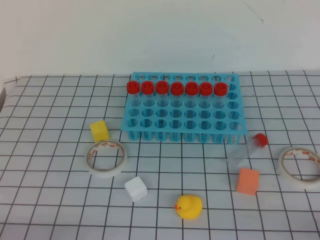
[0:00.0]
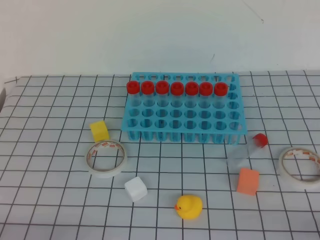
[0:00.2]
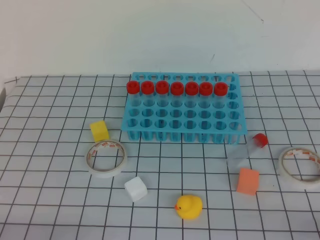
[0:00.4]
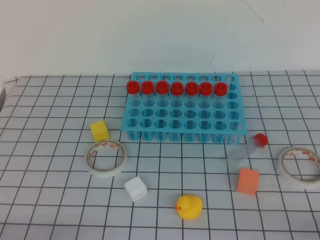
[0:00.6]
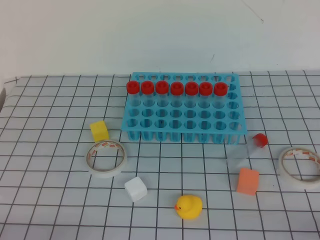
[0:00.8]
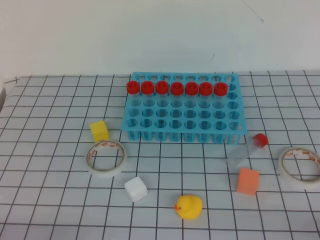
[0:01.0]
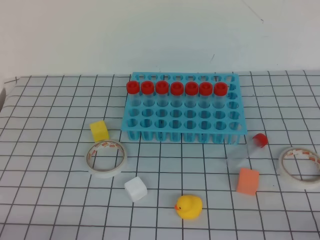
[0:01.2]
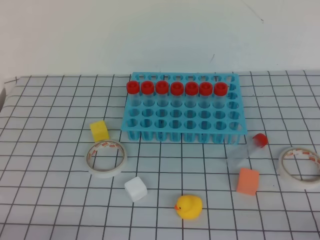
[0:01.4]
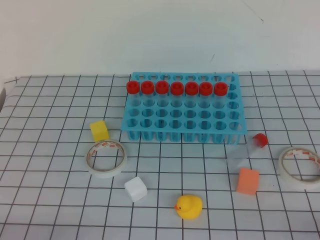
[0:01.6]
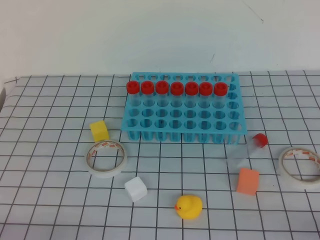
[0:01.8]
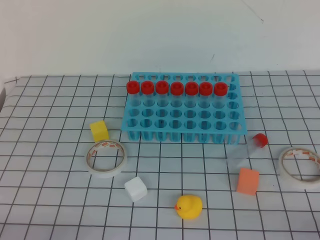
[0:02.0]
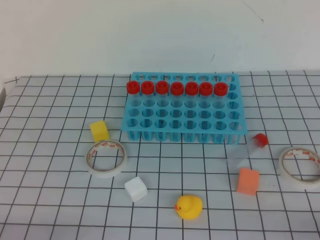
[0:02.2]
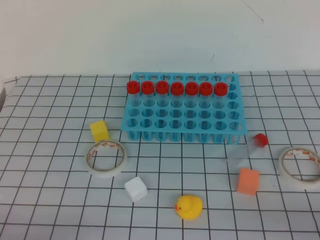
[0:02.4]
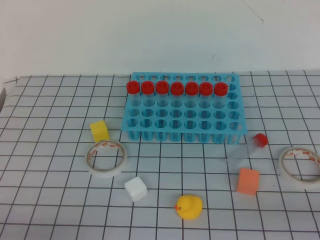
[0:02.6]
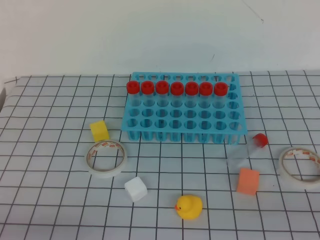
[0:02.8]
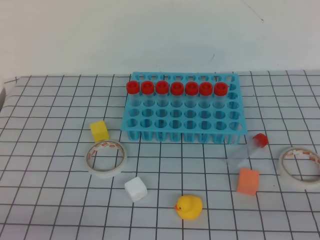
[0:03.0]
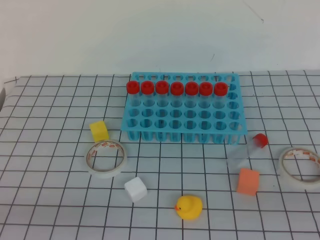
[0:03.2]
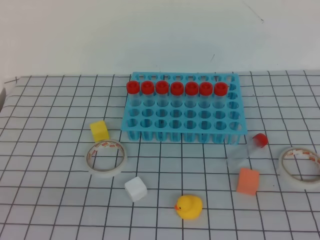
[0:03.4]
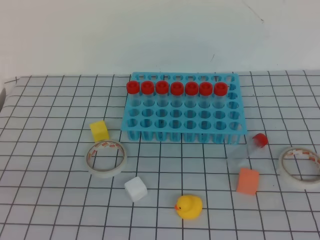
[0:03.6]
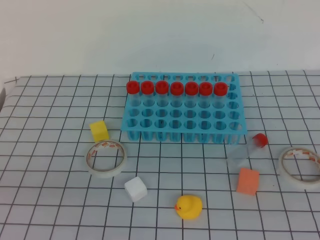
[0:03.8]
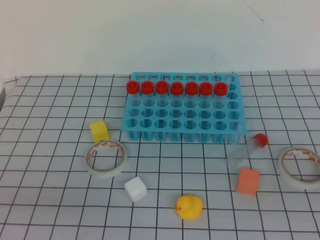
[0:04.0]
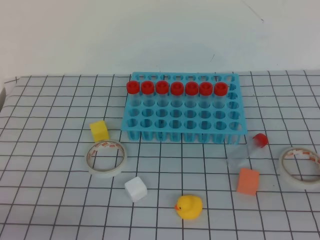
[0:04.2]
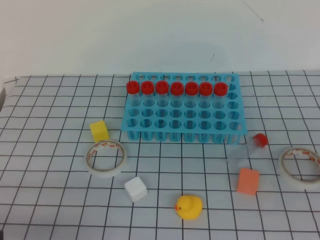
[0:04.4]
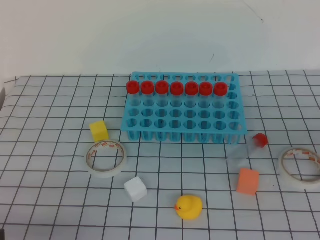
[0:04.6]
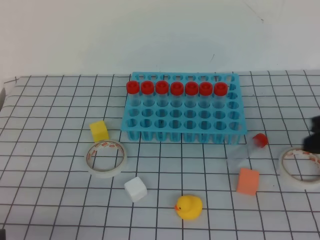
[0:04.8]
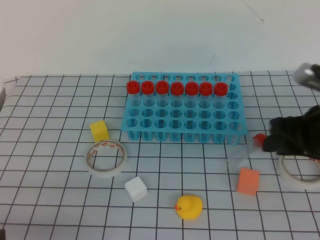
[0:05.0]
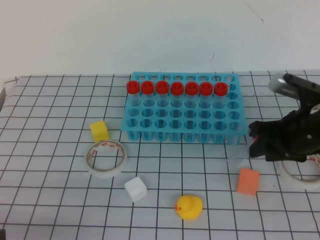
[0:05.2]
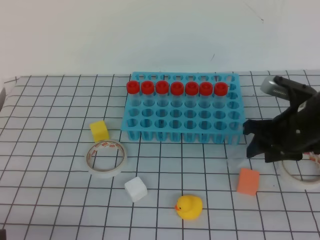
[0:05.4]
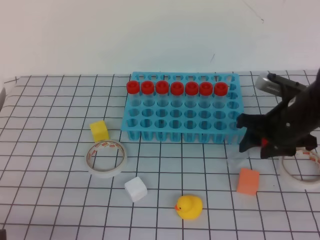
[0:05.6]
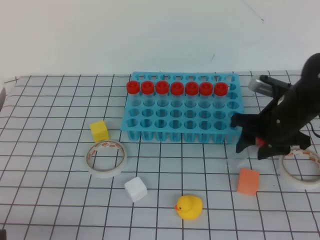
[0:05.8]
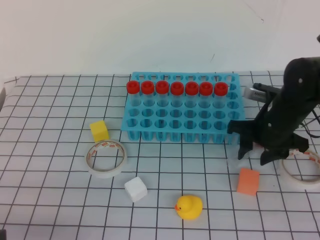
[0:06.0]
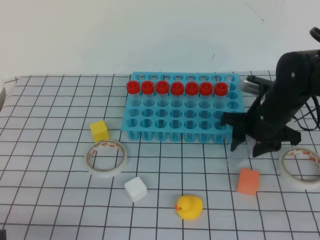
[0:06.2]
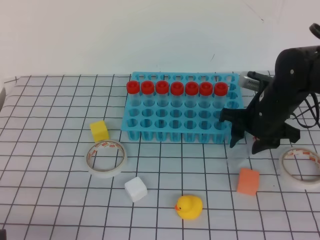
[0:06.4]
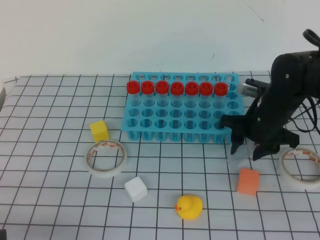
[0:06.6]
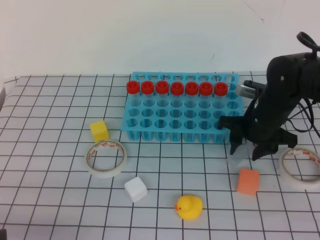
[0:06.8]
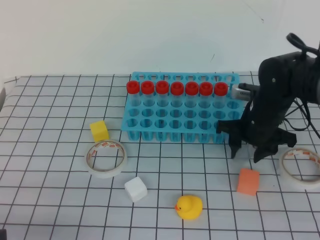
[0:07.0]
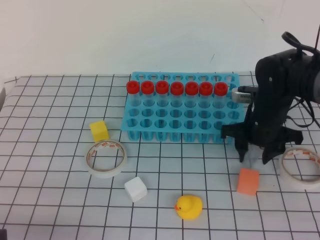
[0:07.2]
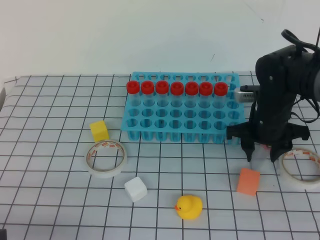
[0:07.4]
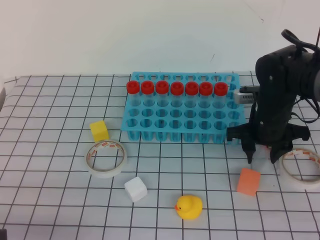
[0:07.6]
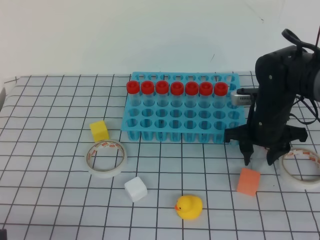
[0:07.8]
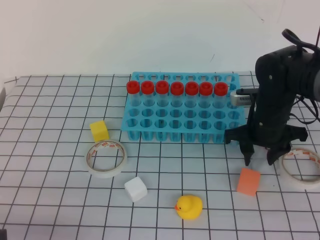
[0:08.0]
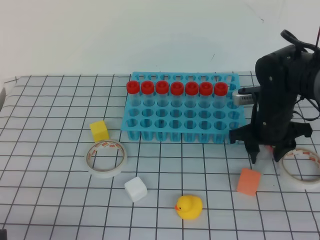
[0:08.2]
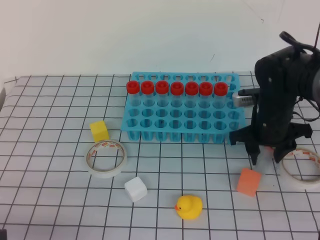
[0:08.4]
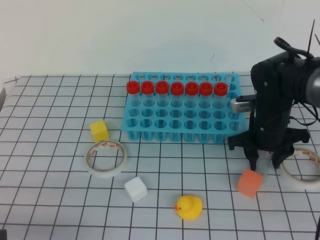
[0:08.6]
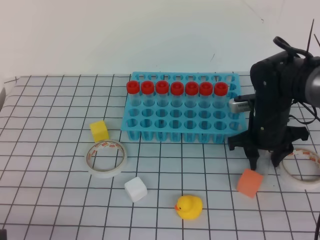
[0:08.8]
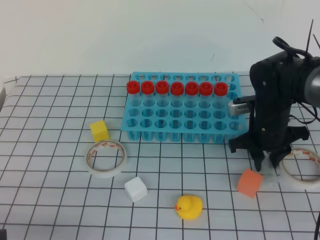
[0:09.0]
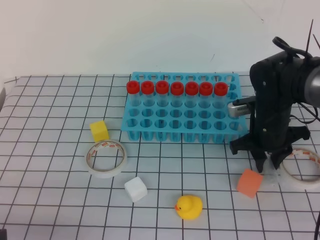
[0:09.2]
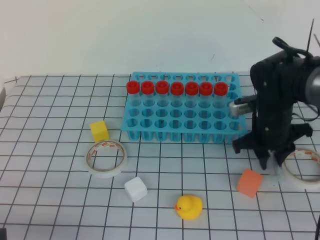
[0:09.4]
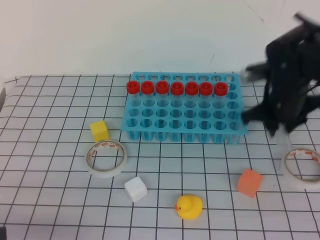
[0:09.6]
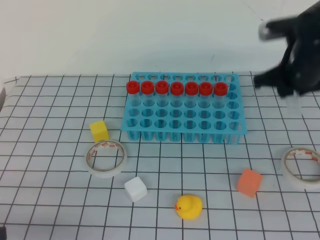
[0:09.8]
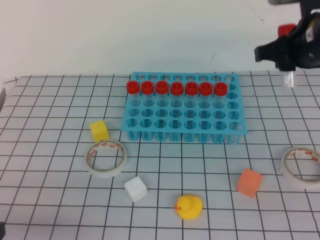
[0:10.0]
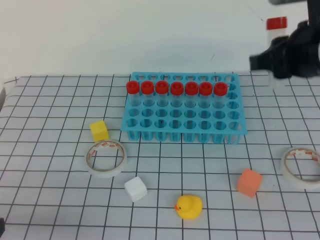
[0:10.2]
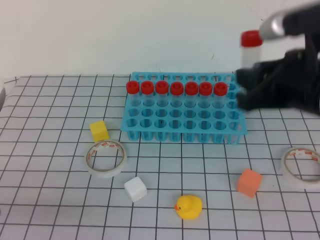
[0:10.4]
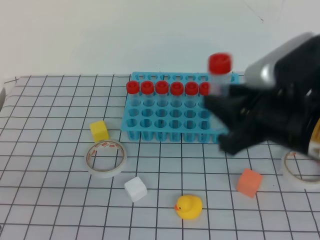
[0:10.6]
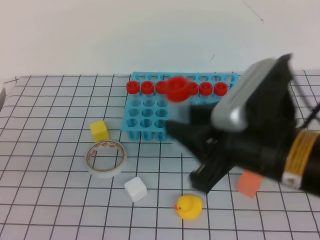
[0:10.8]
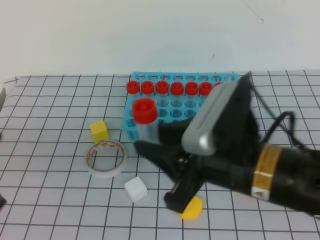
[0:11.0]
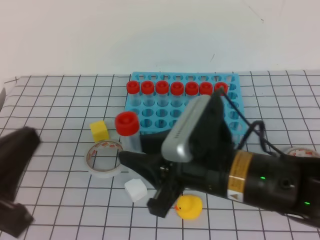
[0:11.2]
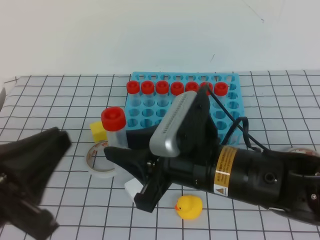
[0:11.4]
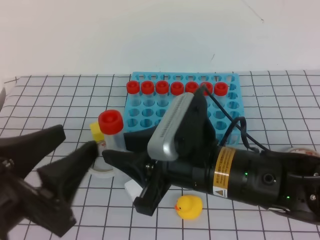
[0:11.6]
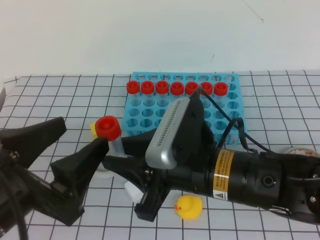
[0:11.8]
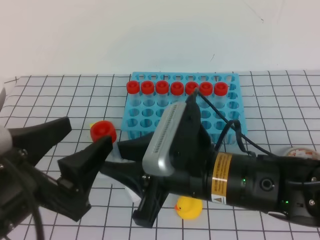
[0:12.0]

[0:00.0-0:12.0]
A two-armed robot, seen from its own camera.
0:00.0 to 0:01.6: Both grippers stay put.
0:04.4 to 0:06.0: The right gripper moves forward and to the left, approximately 25 cm, and opens up.
0:06.0 to 0:07.6: The grippers stay close to where they were, moving slightly.
0:07.6 to 0:09.0: The grippers move only a little.
0:09.0 to 0:10.4: The right gripper shifts about 20 cm upward and backward.
0:10.4 to 0:12.0: The right gripper goes approximately 15 cm to the left, downward and backward. Meanwhile the left gripper moves to the right and upward, roughly 10 cm, and opens up.

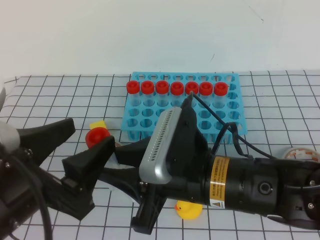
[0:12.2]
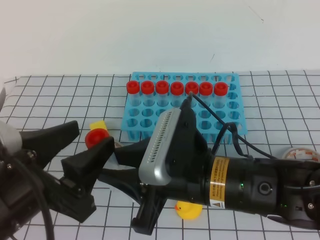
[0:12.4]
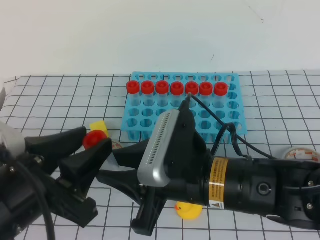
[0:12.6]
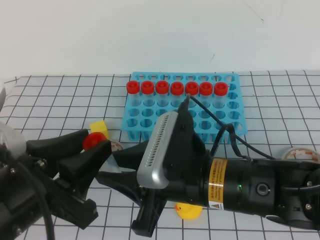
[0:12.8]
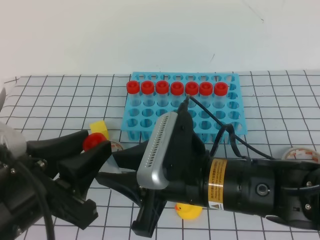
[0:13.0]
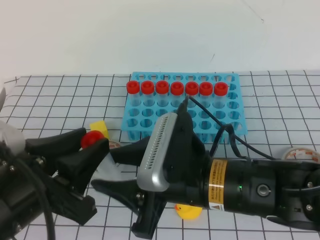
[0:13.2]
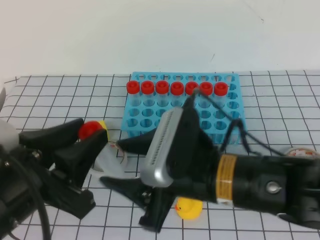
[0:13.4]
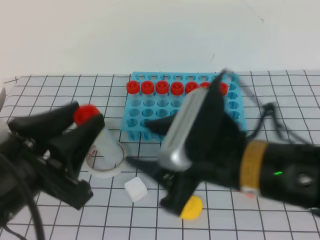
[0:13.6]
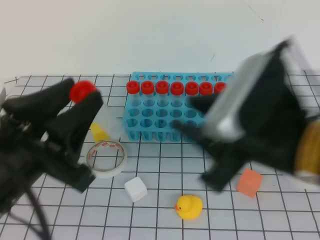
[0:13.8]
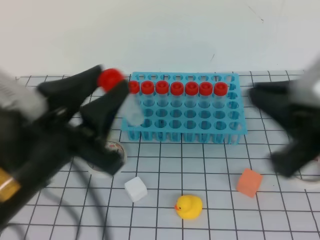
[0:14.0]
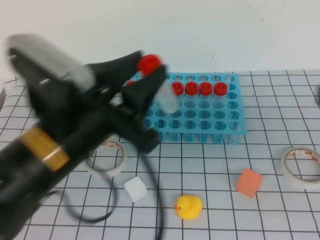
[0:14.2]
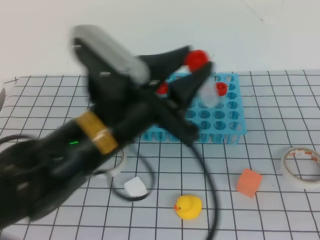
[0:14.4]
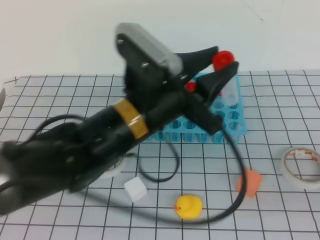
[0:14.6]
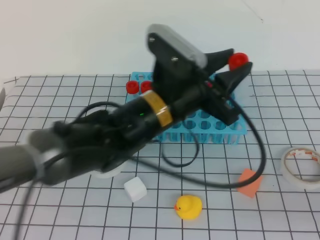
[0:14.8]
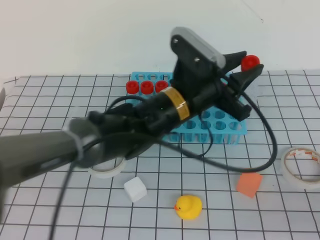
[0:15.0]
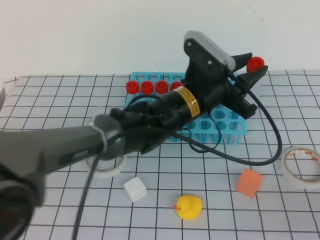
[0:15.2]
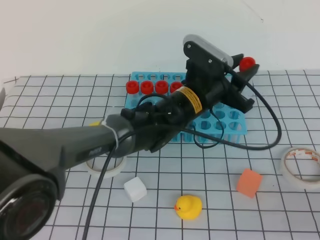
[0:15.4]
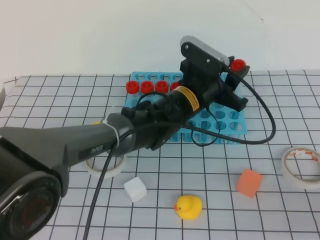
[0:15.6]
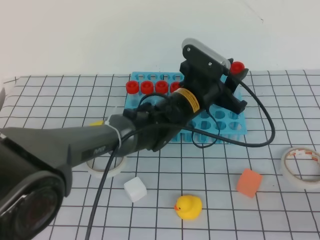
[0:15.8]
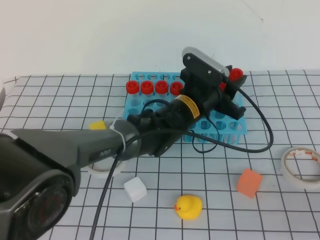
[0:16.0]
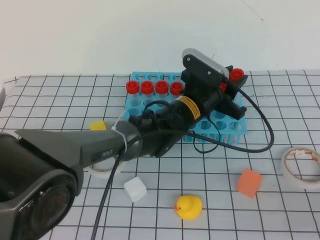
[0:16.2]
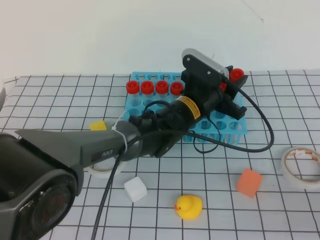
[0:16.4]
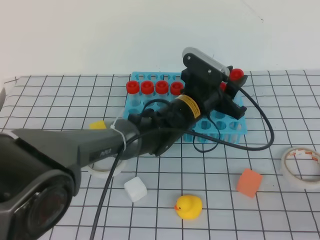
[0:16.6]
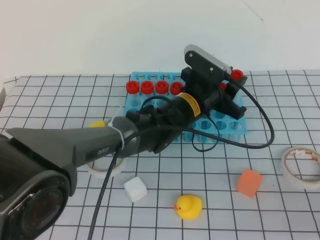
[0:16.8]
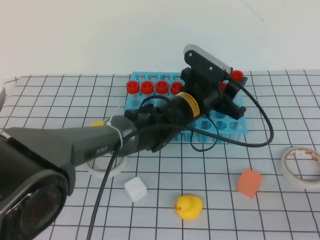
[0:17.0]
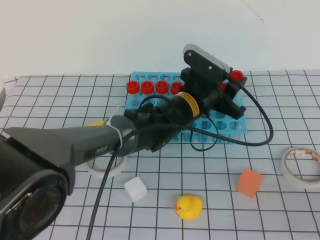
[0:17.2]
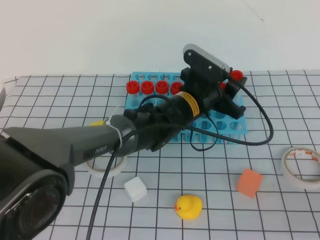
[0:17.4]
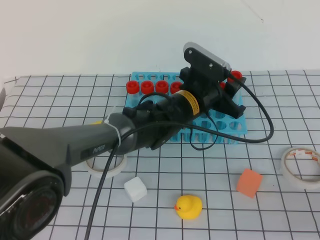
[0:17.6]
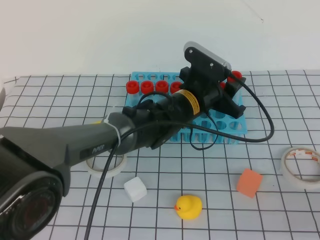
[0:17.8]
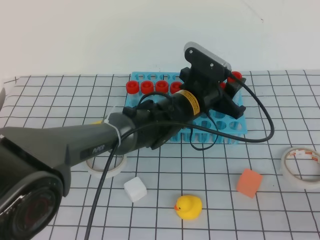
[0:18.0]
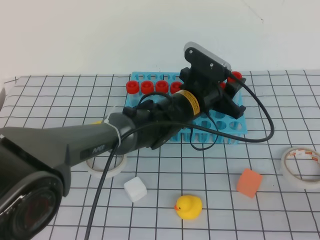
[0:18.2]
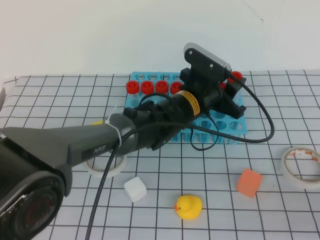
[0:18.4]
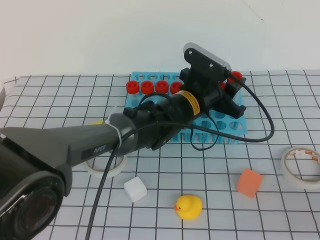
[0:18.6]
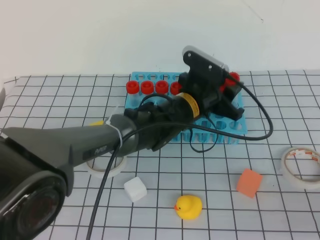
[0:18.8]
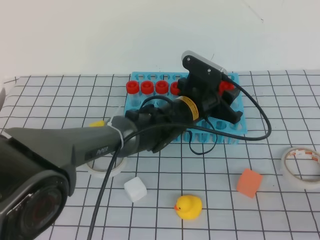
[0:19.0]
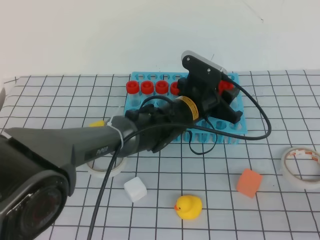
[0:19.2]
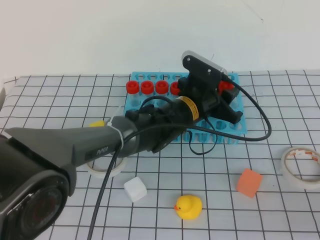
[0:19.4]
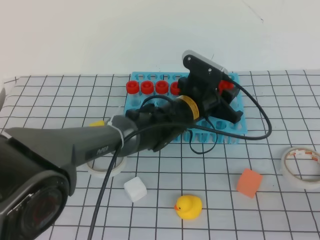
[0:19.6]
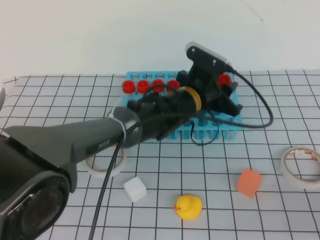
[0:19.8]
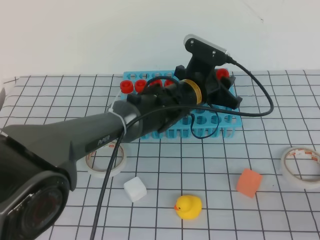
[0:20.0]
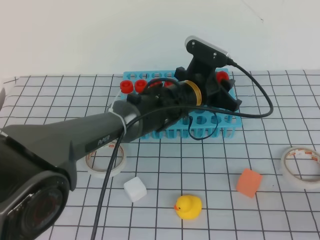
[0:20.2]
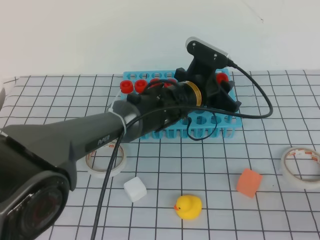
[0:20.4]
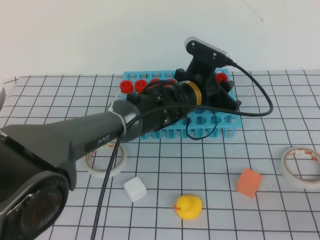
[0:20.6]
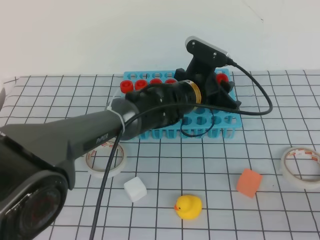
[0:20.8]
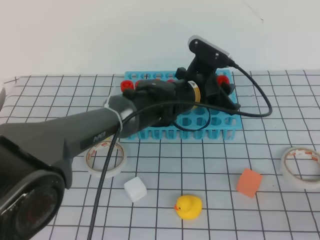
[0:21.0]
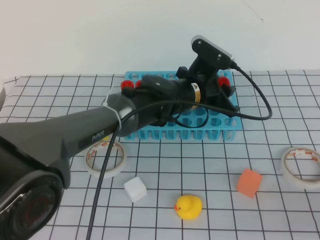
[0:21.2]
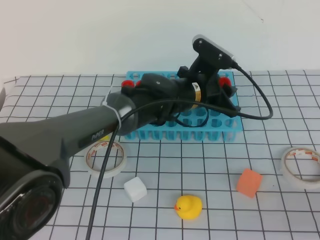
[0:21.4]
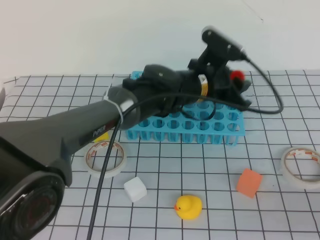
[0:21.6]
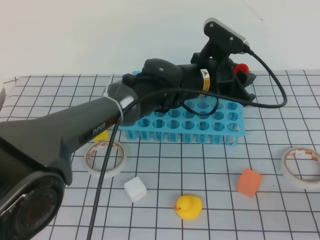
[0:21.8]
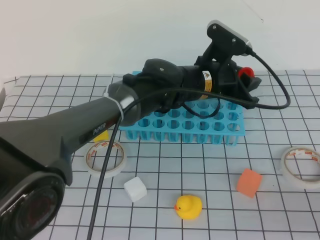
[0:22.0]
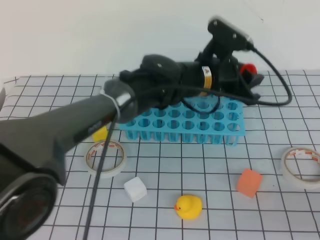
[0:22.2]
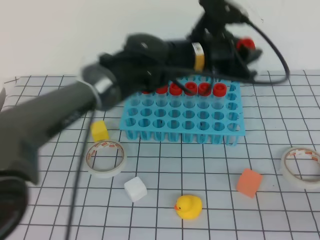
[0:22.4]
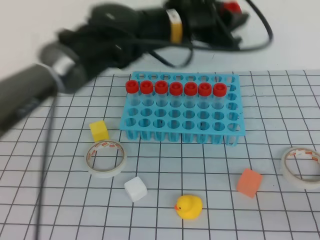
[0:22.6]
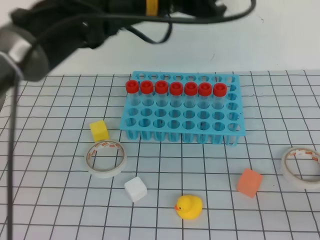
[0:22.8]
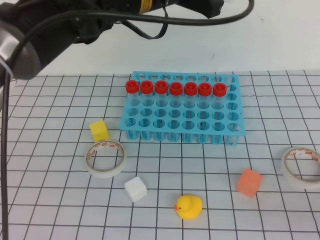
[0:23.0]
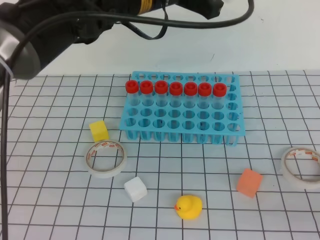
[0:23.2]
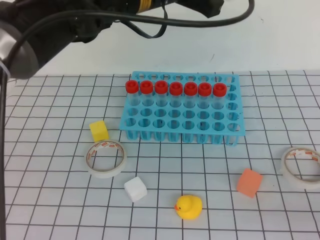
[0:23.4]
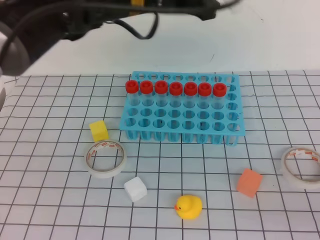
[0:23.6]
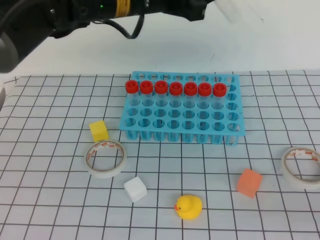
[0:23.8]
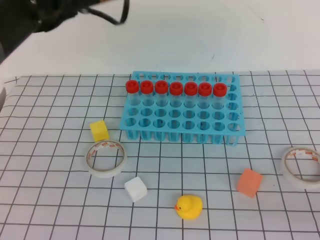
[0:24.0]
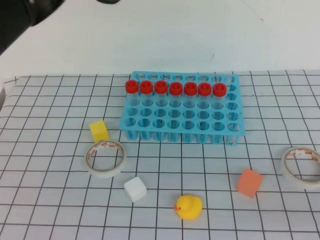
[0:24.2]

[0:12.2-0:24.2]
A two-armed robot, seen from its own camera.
0:12.2 to 0:13.8: The left gripper closes up, while the right gripper heads upward and to the right, covering approximately 10 cm.
0:13.8 to 0:15.2: The right gripper is displaced to the right and backward by approximately 20 cm, and closes up; the left gripper shifts approximately 30 cm forward and to the right.
0:15.2 to 0:16.6: The left gripper shifts about 5 cm downward.
0:16.6 to 0:19.8: The grippers move only a little.
0:19.8 to 0:21.2: The grippers move only a little.
0:21.2 to 0:22.6: The left gripper moves upward, roughly 15 cm.
0:22.6 to 0:24.2: The left gripper travels upward and to the left by some 15 cm.
